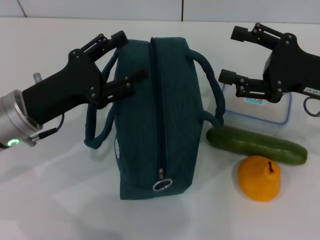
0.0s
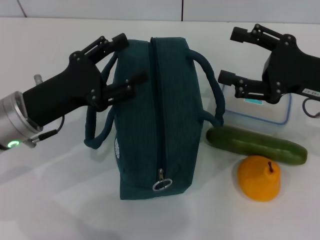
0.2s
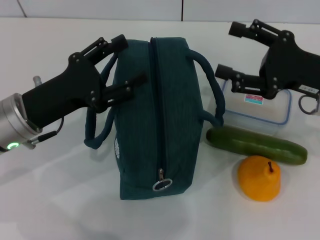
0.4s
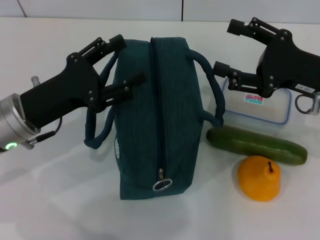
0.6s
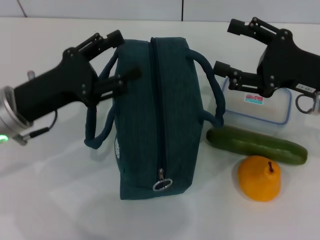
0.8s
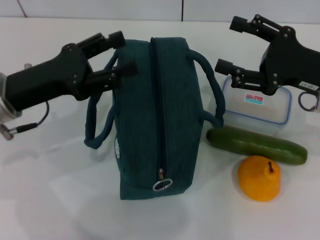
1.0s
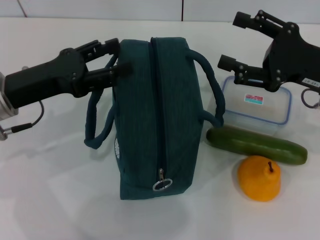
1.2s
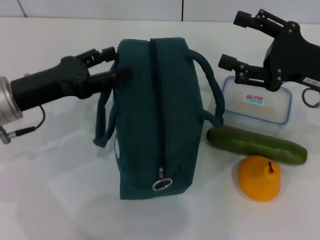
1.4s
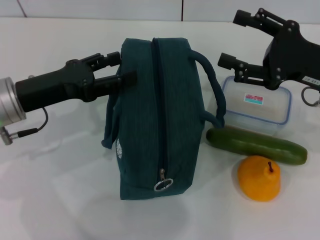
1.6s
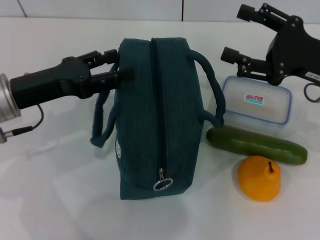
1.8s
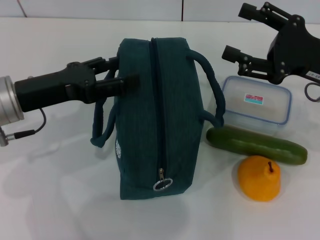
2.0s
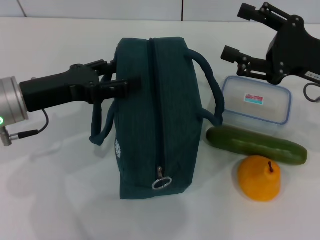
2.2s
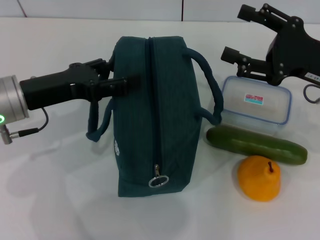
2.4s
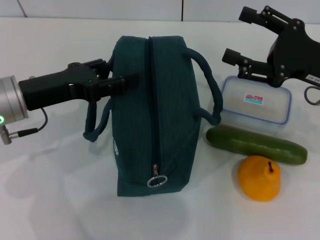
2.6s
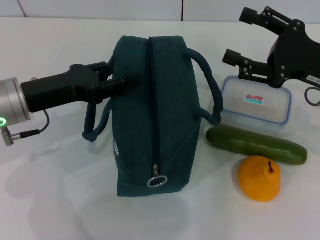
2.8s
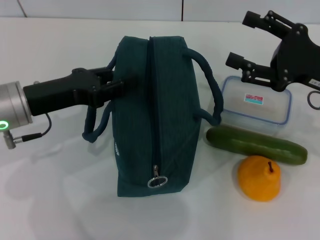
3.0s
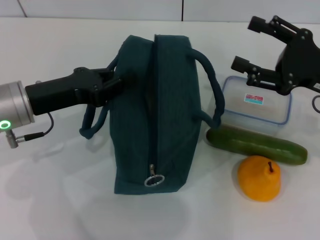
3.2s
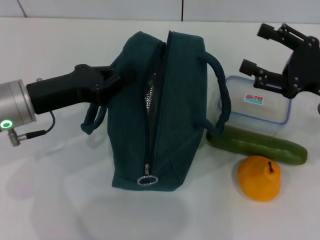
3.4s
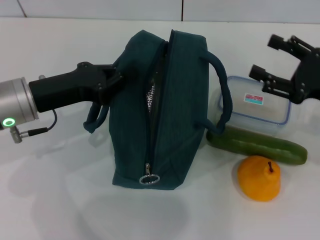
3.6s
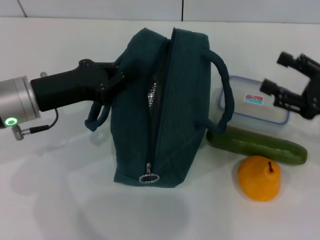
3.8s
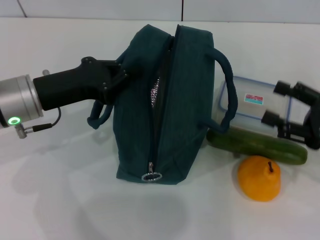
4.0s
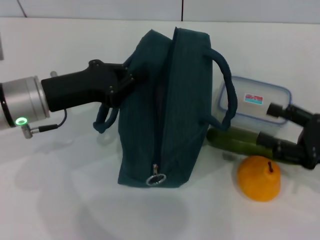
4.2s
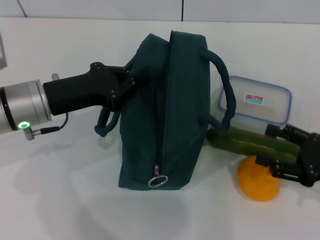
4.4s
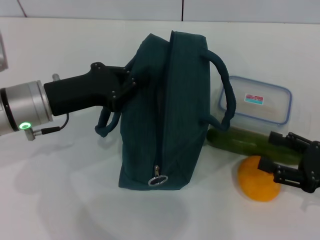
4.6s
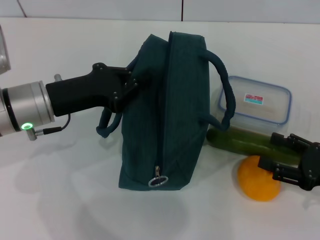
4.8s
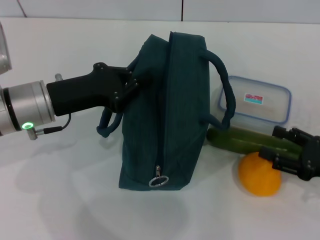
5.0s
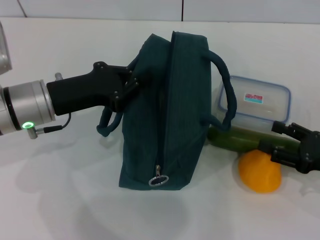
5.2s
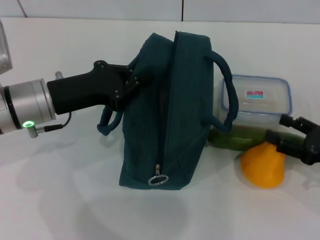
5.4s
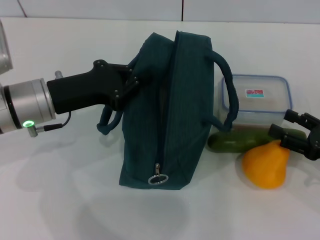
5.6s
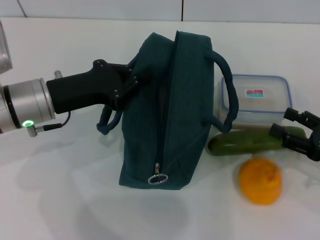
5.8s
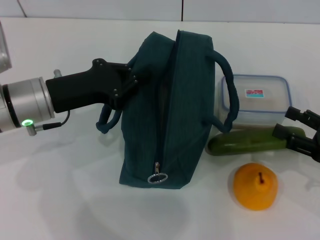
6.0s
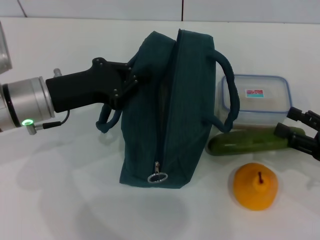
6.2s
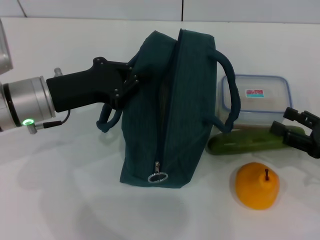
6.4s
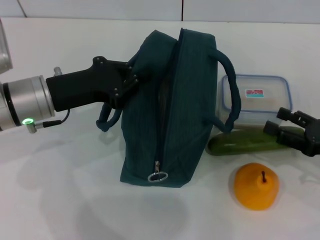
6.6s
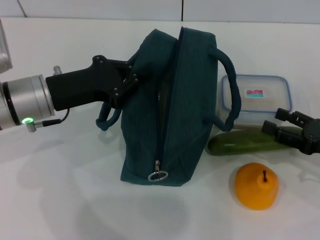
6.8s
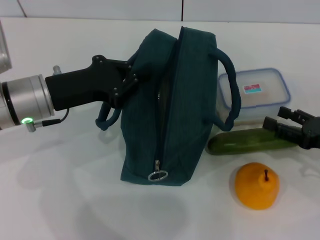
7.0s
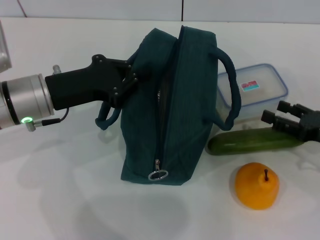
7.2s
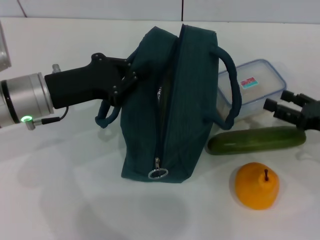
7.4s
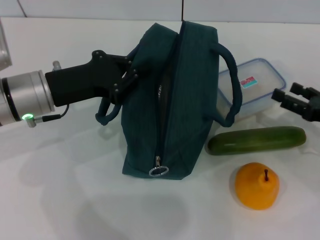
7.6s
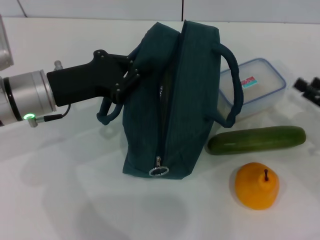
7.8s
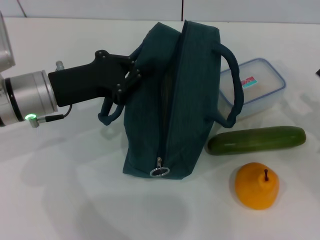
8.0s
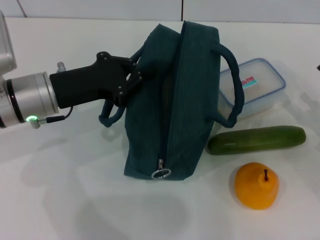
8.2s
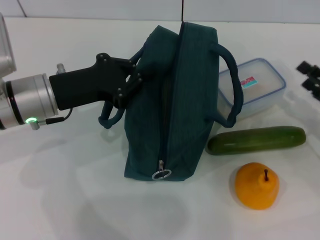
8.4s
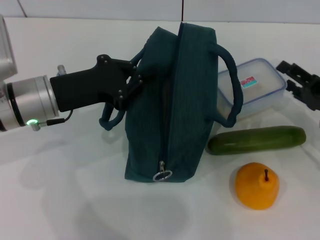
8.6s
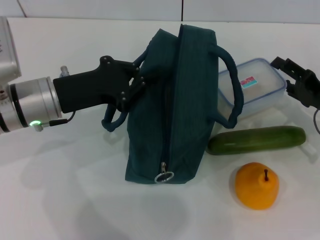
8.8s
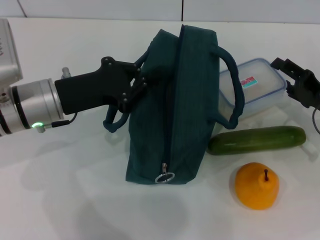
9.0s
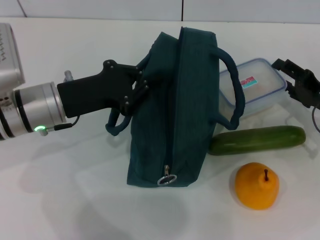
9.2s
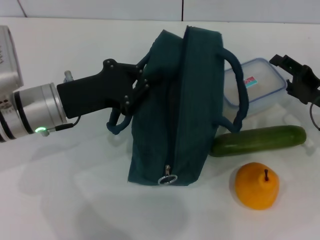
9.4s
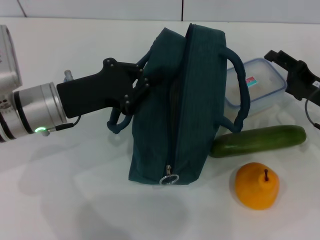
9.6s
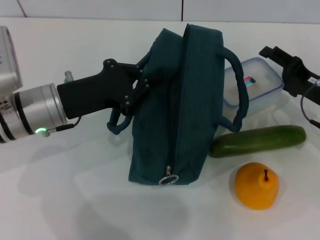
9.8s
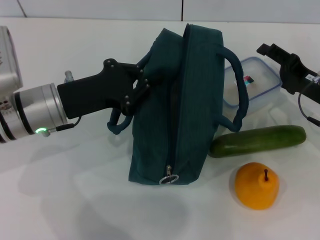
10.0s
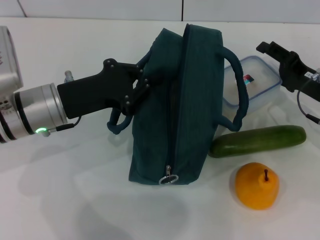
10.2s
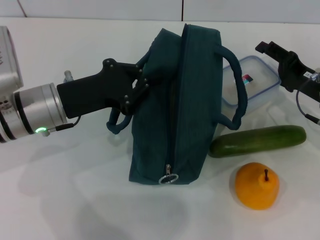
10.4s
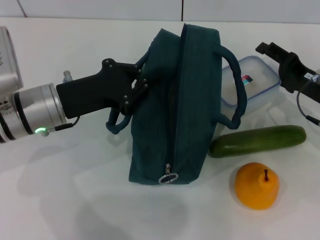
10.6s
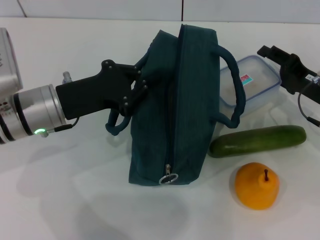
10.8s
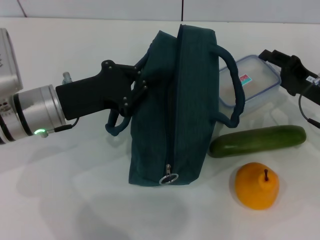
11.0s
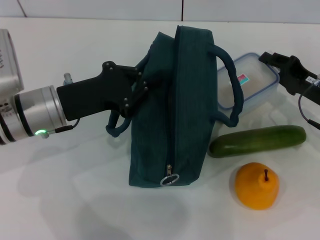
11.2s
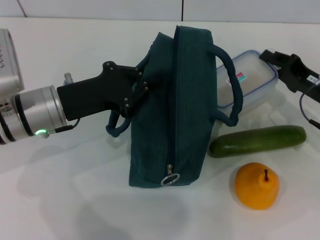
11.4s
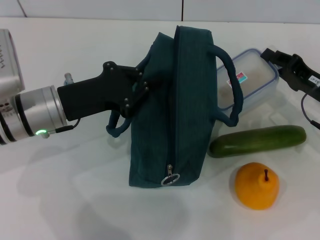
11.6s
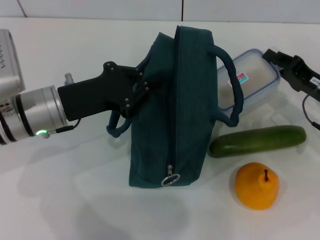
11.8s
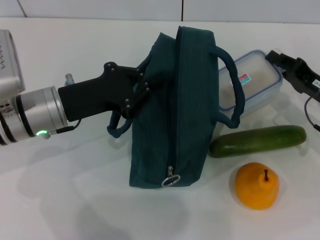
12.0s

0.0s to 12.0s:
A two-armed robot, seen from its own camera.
Step, 0.0s to 4.2s: Hold the lunch bag with your left hand.
1.6s to 3.0s: The grippers make only small movements.
3.0s to 4.4s: The left gripper closes, while the right gripper is displaced backward, downward and to the right by roughly 15 cm.
4.4s to 6.0s: The grippers stay close to where they were, moving slightly.
6.0s to 7.6s: The right gripper travels forward by some 5 cm.
9.0s to 10.4s: The grippers move only a little.
10.4s to 12.0s: The right gripper closes up.

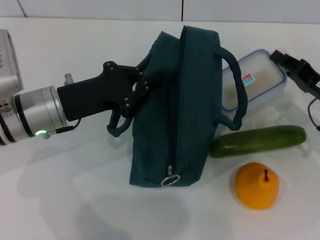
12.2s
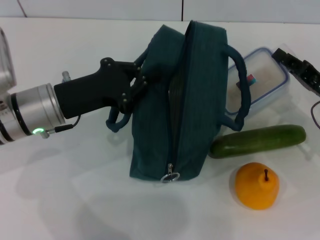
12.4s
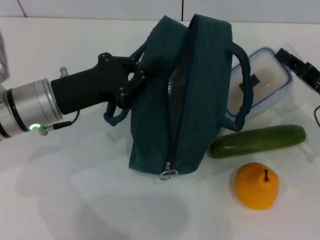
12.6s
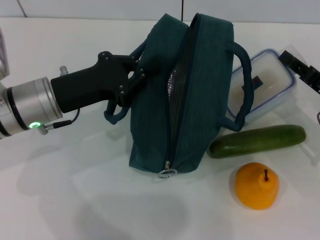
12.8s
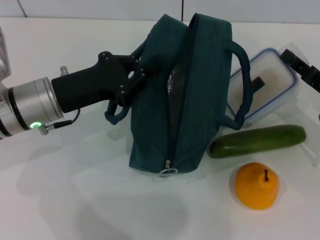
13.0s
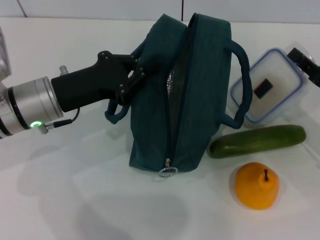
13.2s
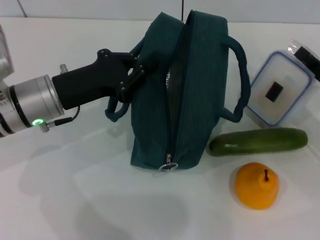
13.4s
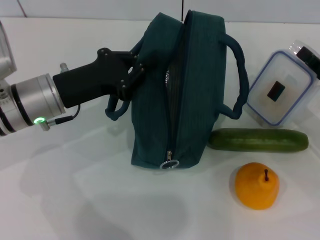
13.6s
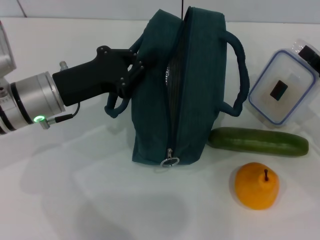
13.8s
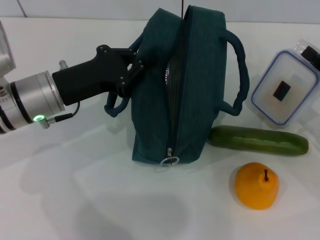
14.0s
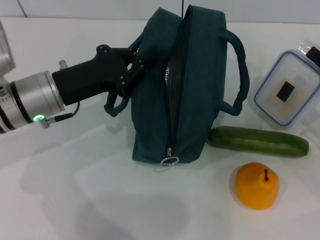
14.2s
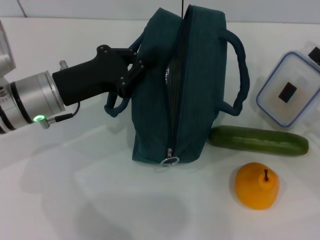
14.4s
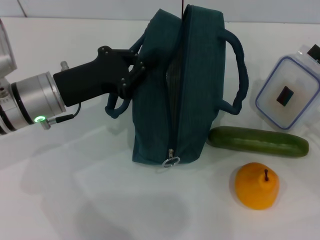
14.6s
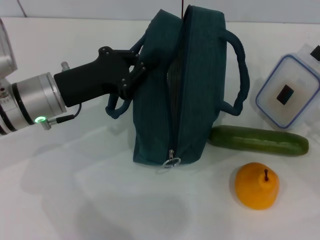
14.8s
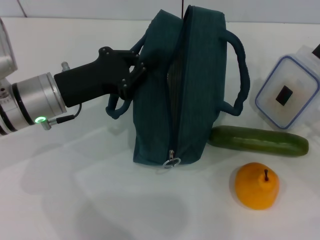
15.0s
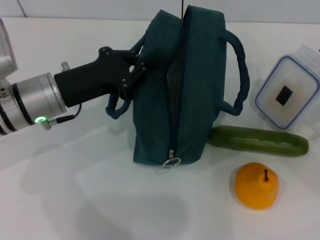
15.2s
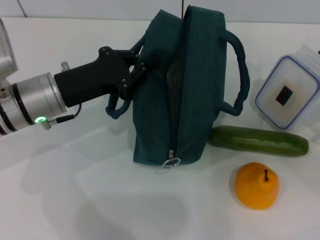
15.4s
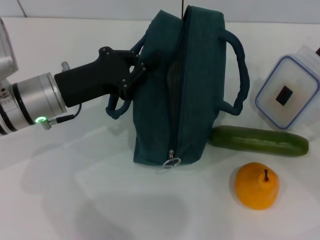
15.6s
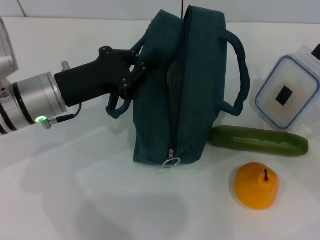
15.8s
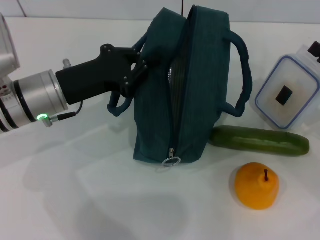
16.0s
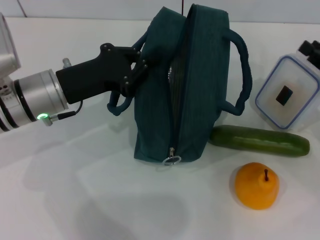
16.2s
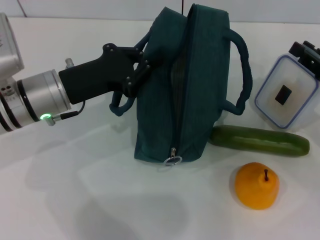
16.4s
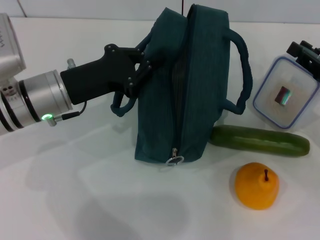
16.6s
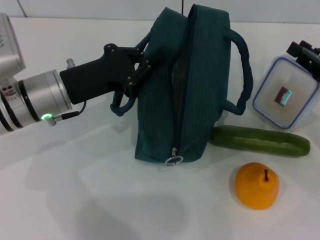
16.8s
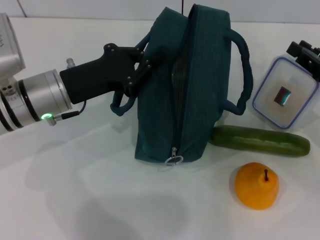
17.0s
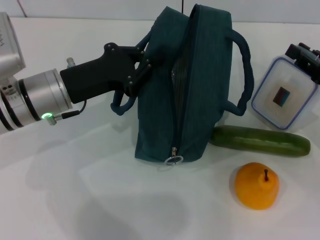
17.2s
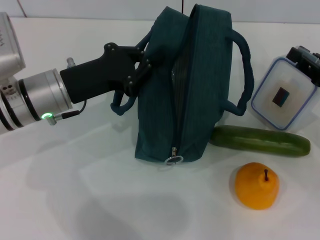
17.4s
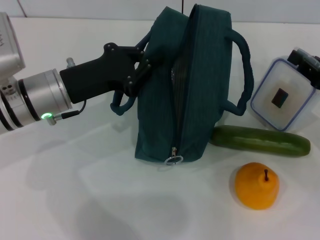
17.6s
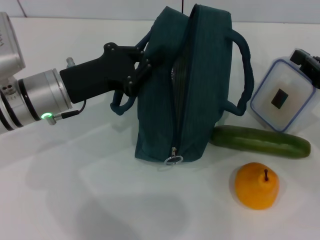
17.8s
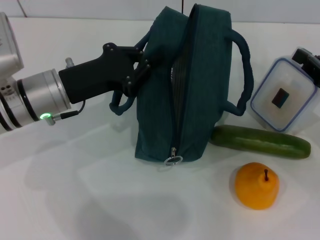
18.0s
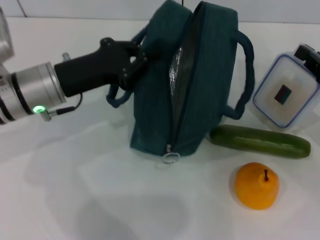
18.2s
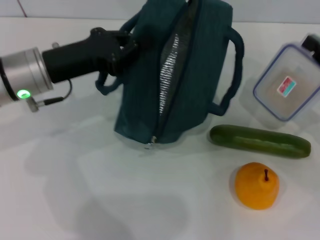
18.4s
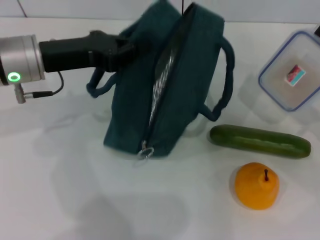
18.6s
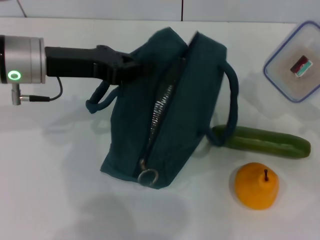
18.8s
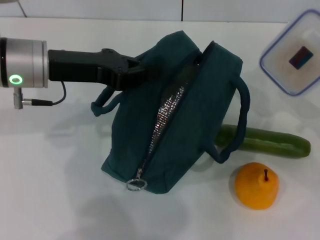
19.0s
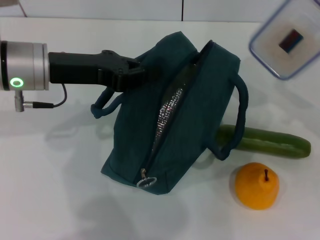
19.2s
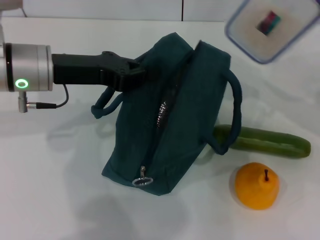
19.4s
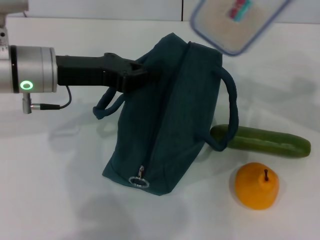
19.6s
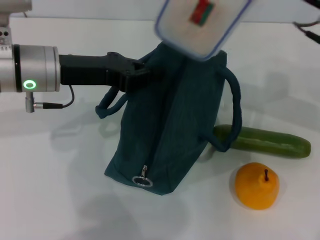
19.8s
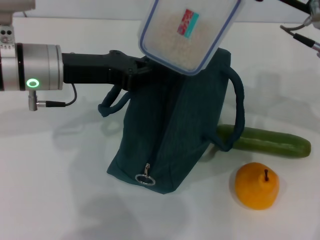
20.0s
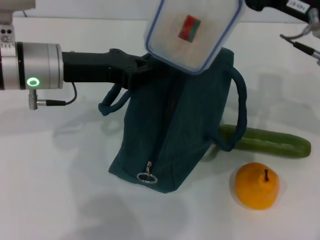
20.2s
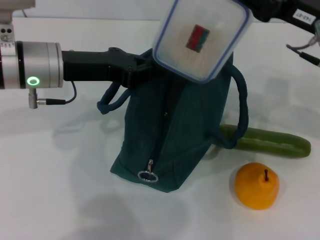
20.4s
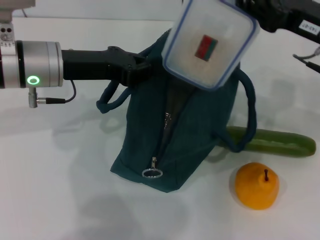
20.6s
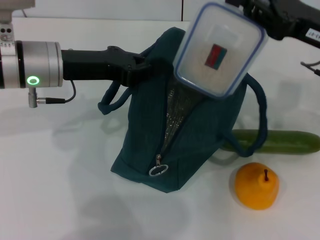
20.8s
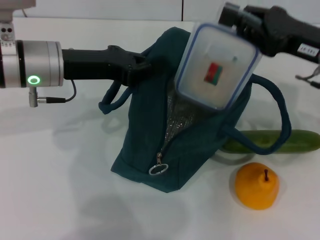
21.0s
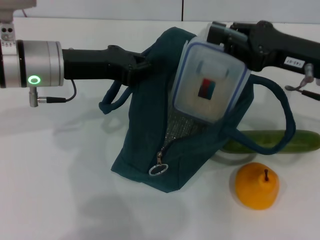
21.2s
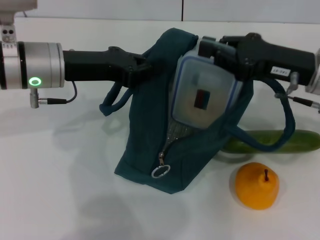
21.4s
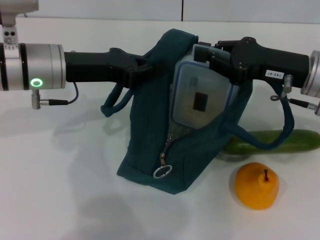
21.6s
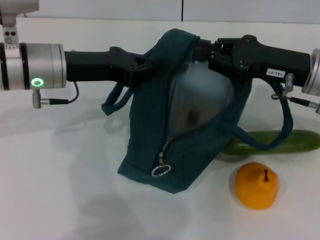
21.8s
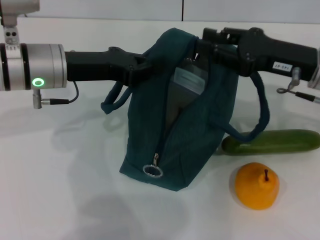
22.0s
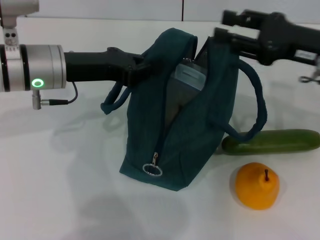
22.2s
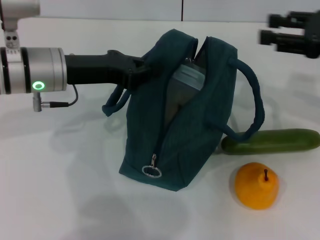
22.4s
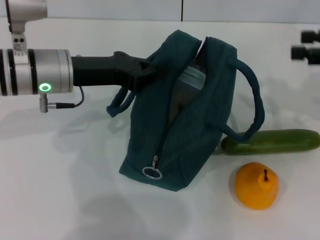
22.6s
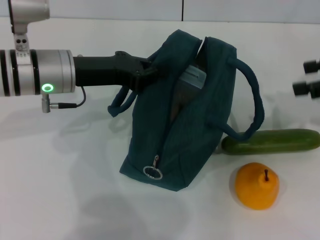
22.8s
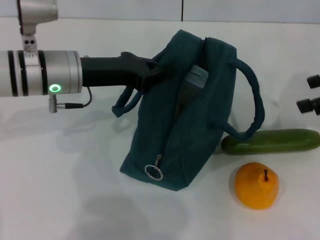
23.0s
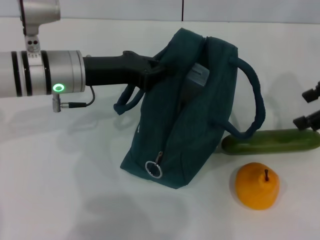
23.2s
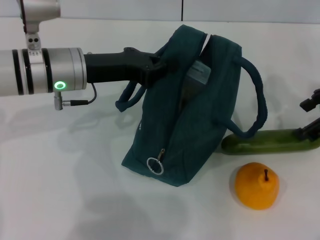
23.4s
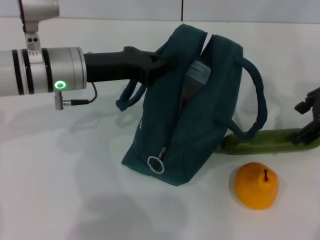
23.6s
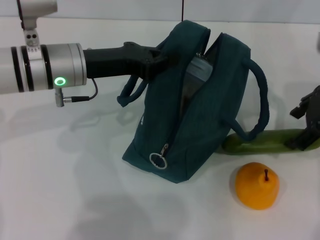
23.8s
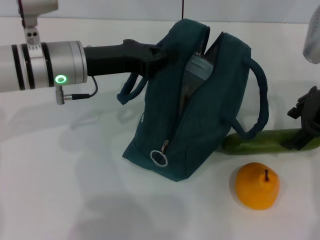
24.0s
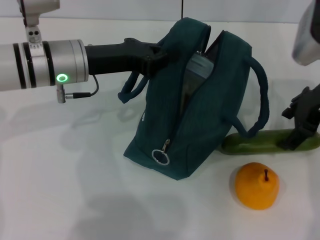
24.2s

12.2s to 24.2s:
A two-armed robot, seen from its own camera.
Step, 12.2s to 17.4s: Pick up the lunch box with your right hand.
Step, 17.6s to 22.2s: Place the lunch box into the lunch bag with your right hand.
13.8s to 16.6s: The grippers move only a little.
16.6s to 18.2s: The right gripper closes its fingers.
18.2s to 19.8s: The right gripper moves upward, to the left and forward, some 15 cm.
19.8s to 21.2s: The right gripper is displaced downward by roughly 5 cm.
21.2s to 22.6s: The right gripper shifts about 10 cm to the right, and opens up.
22.6s to 24.2s: The right gripper is displaced to the left by approximately 10 cm.
